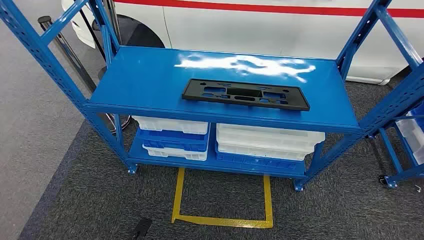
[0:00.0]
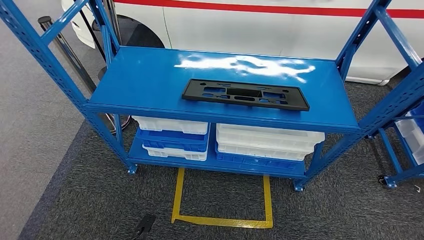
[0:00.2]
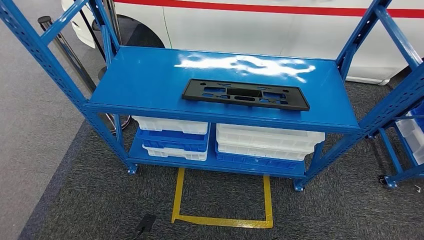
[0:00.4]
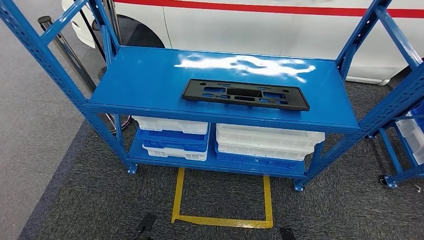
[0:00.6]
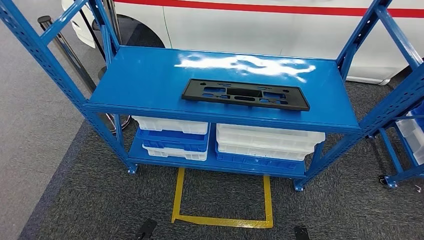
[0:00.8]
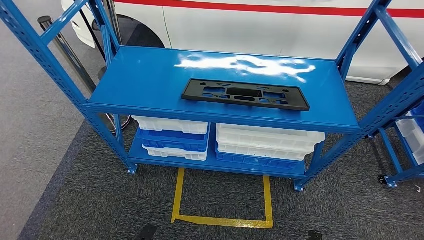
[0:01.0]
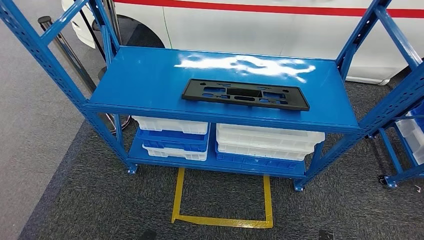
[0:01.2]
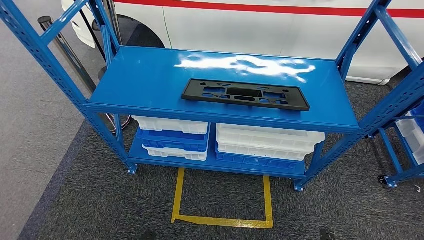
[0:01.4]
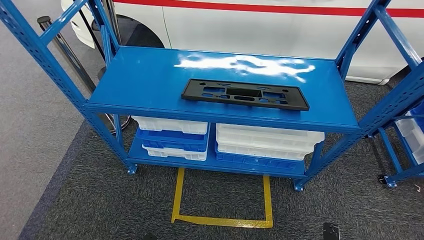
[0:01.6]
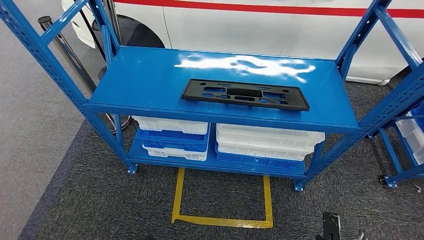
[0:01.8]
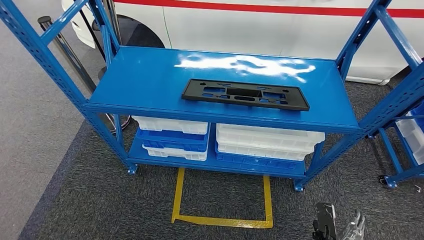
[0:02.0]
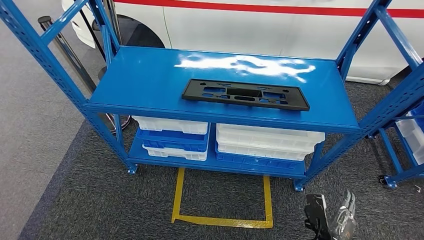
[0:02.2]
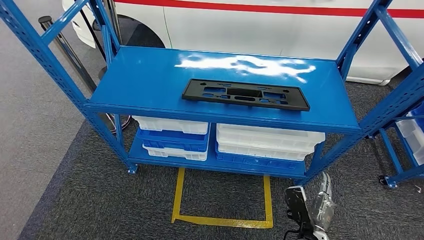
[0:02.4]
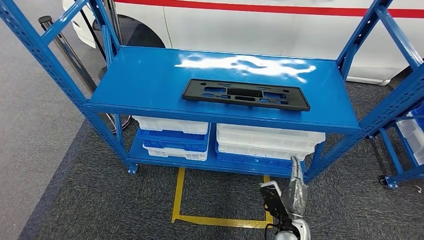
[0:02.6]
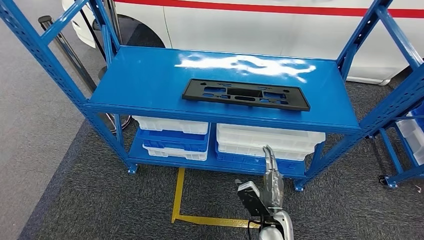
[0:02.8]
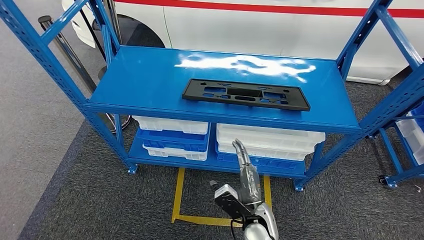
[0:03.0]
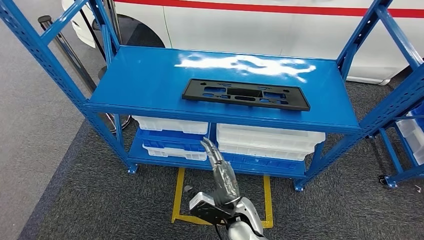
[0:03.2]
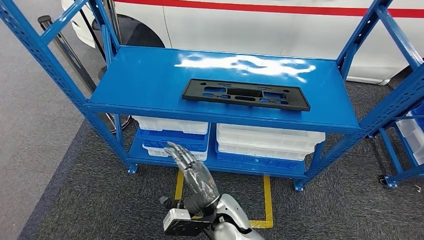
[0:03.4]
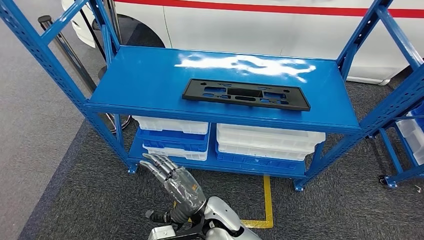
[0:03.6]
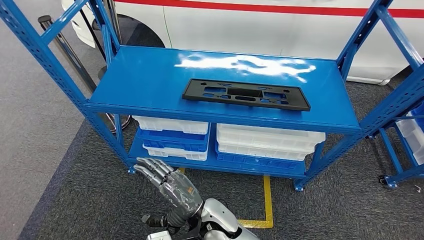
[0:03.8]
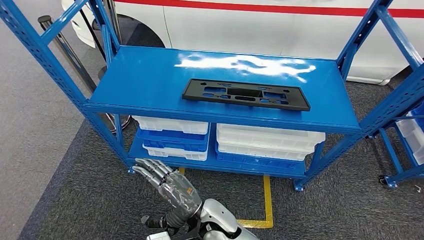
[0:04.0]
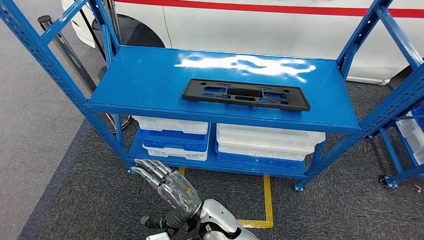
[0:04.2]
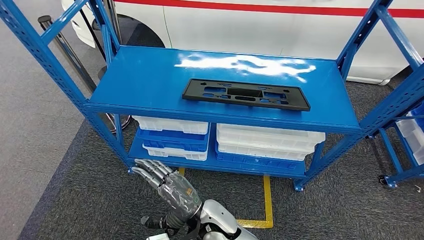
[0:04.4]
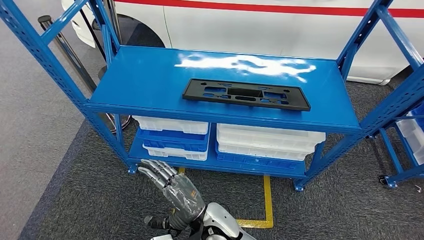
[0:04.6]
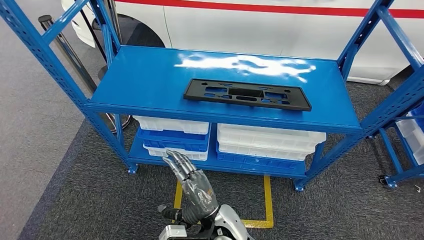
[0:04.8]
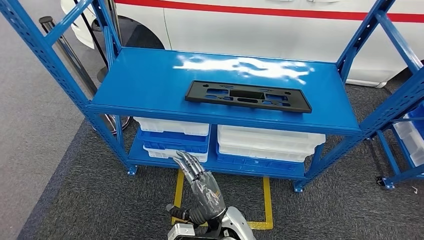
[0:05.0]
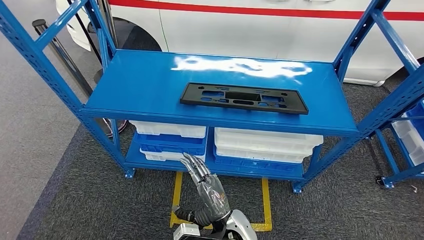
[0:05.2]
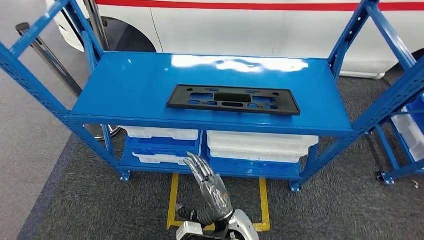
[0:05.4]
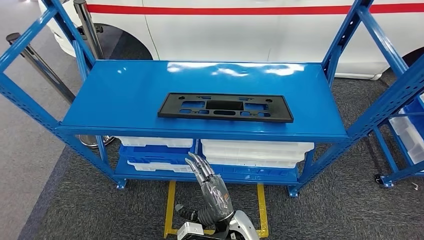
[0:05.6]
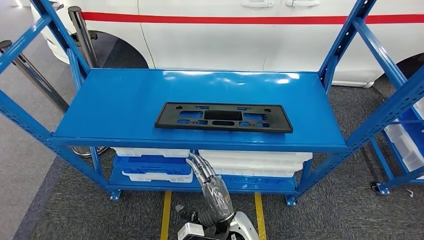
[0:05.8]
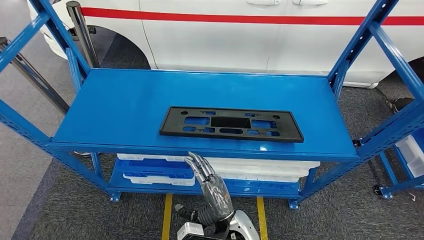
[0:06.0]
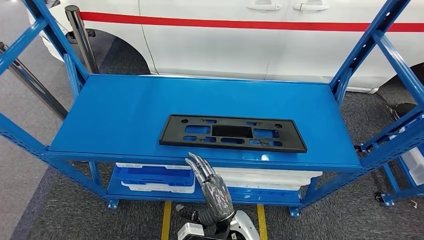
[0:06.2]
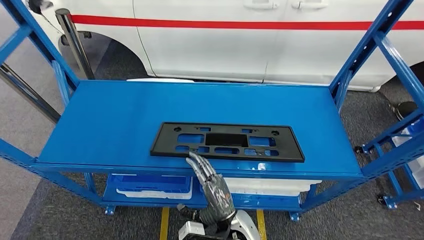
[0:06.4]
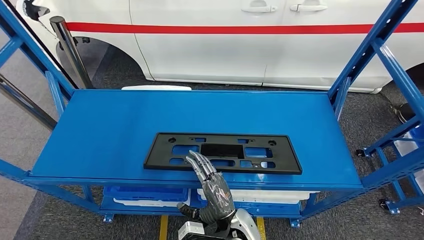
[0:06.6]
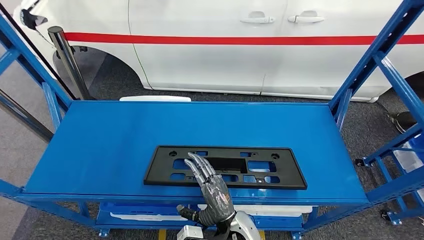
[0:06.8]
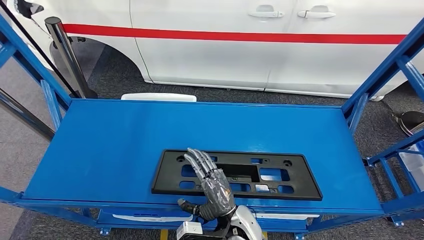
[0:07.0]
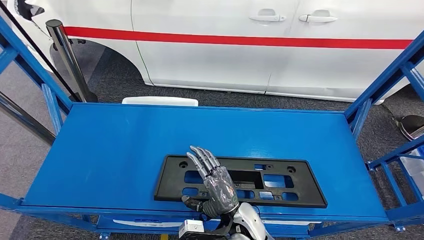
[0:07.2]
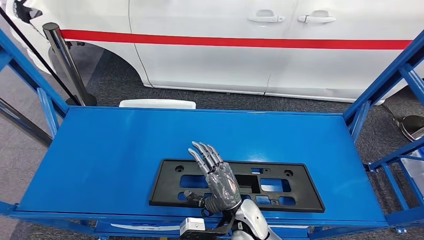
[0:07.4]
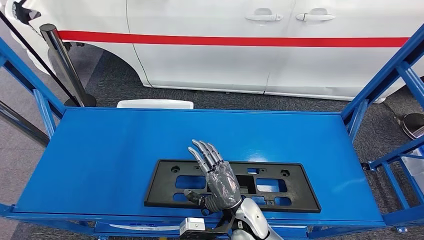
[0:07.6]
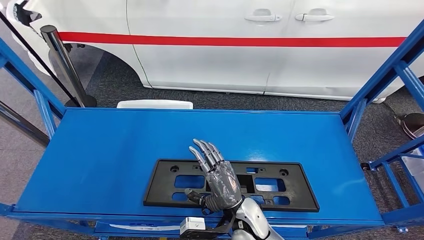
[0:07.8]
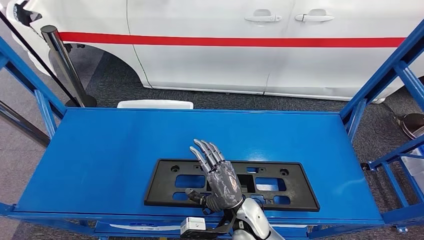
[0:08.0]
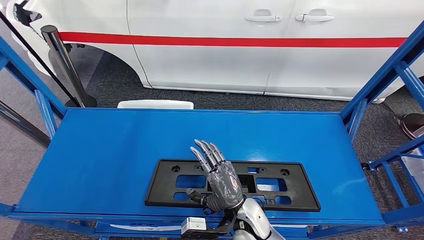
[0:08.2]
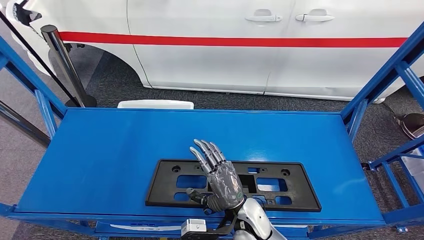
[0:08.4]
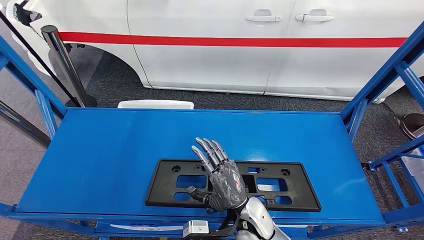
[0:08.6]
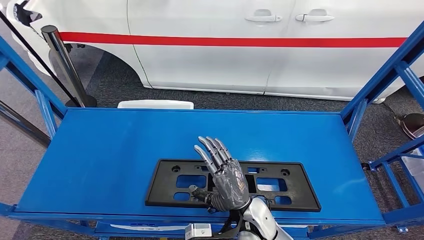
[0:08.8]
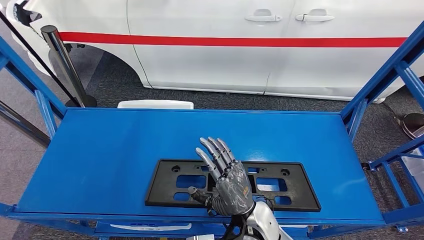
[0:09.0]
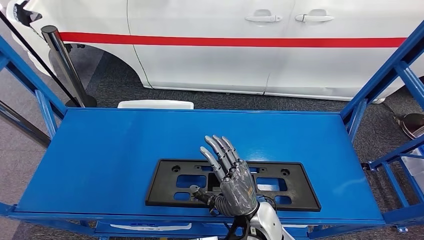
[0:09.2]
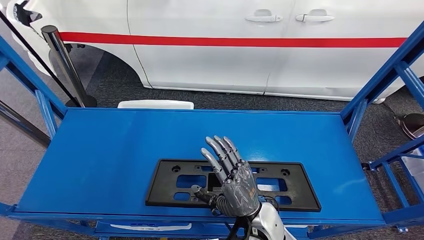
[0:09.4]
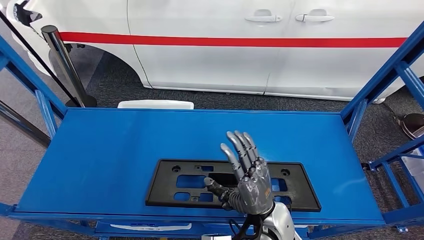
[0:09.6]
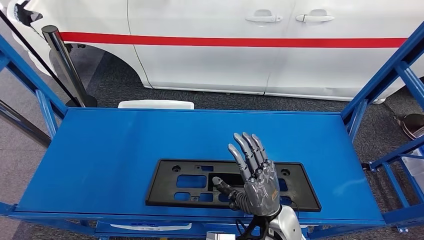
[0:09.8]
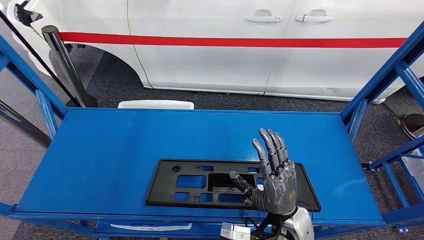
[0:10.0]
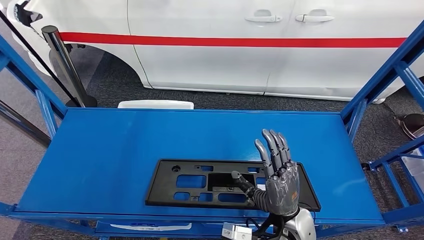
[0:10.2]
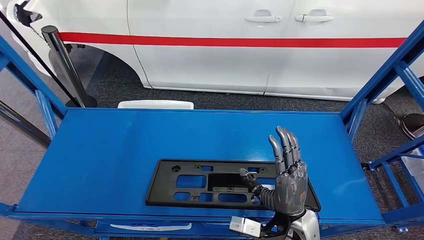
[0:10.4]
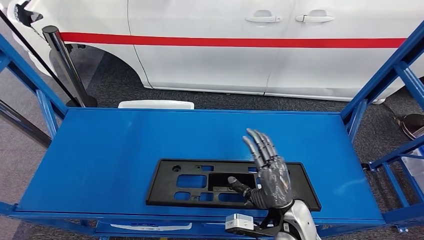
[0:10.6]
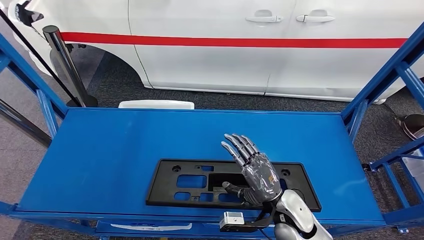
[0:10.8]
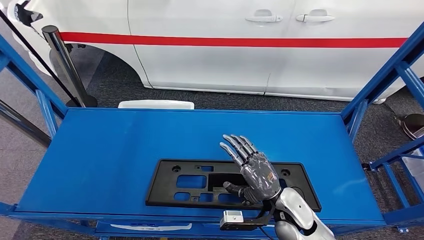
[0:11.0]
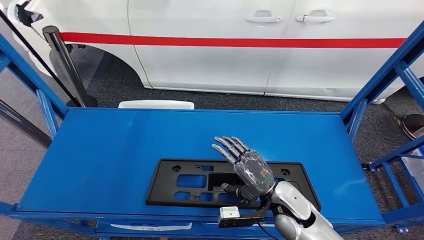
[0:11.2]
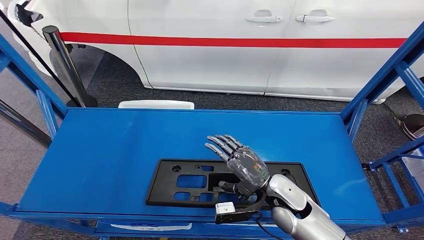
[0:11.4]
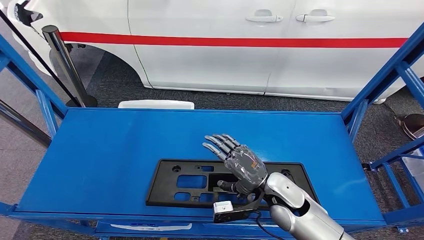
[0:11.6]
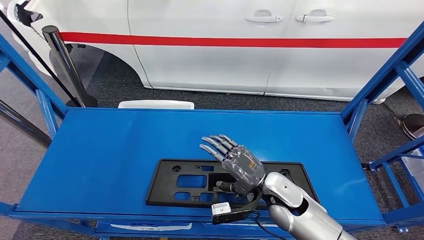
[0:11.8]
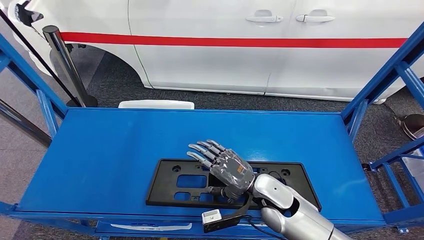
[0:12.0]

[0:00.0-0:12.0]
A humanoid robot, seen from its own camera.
0:01.6 to 0:03.0: The right hand travels to the left, upward and forward by some 30 cm.
0:03.0 to 0:04.4: The right hand heads to the left and upward, covering approximately 15 cm.
0:07.6 to 0:09.0: The hands move only a little.
0:09.0 to 0:10.4: The right hand travels to the right by about 10 cm.
0:10.4 to 0:12.0: The right hand is displaced forward by approximately 5 cm.

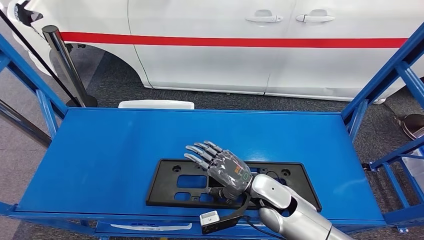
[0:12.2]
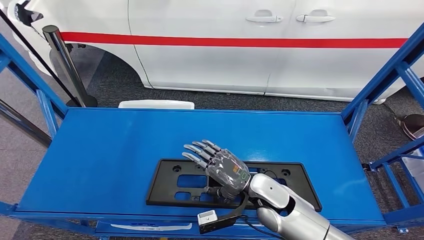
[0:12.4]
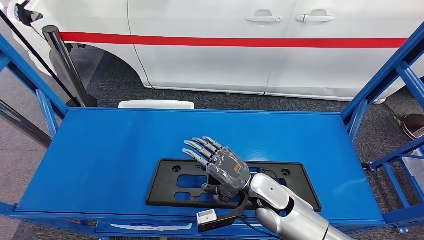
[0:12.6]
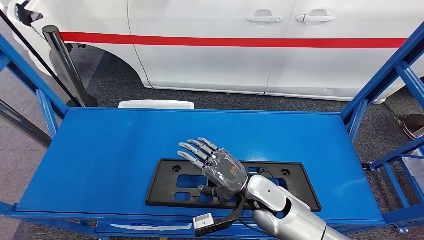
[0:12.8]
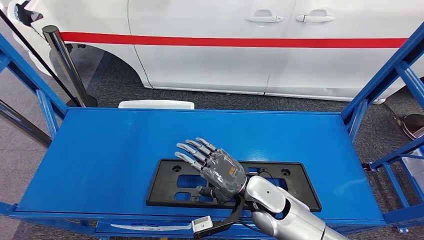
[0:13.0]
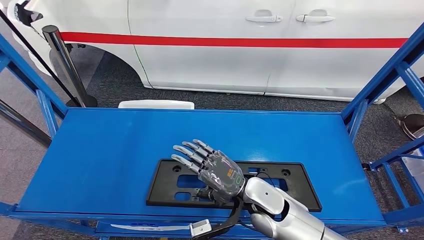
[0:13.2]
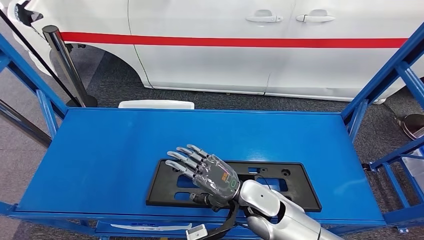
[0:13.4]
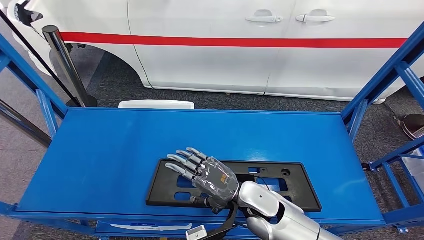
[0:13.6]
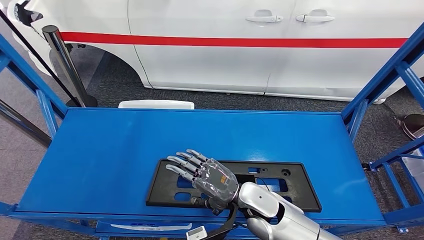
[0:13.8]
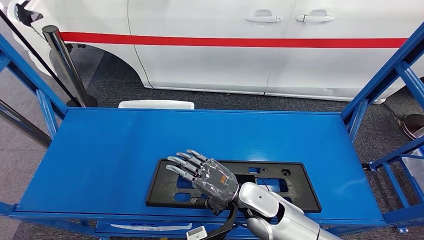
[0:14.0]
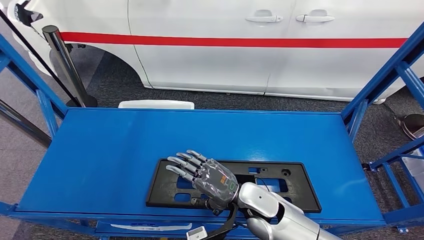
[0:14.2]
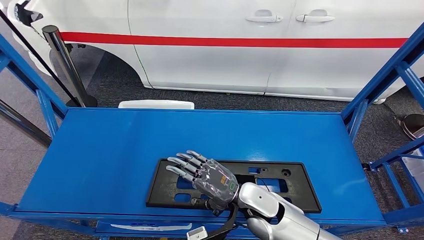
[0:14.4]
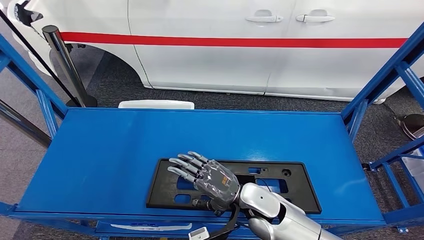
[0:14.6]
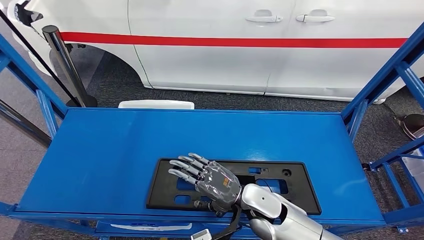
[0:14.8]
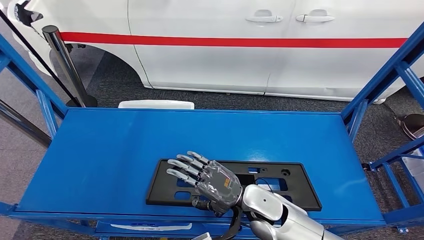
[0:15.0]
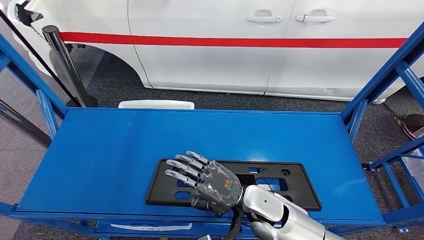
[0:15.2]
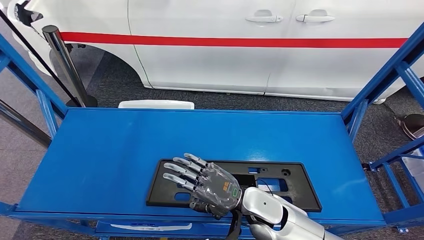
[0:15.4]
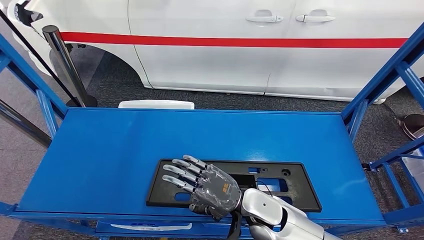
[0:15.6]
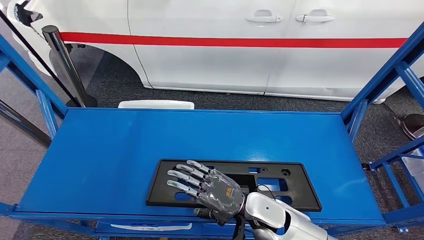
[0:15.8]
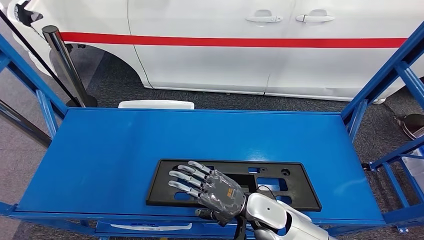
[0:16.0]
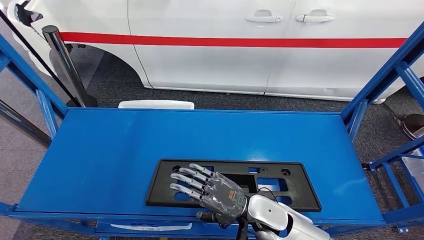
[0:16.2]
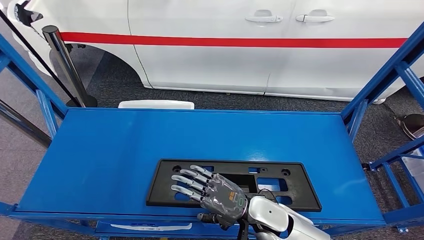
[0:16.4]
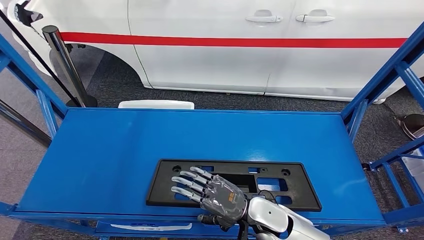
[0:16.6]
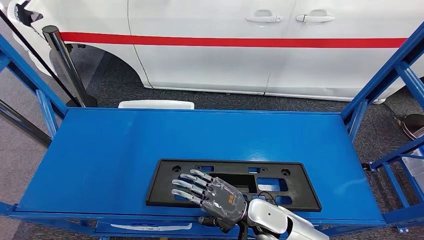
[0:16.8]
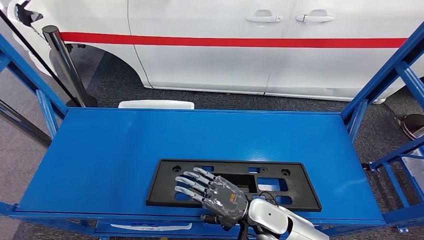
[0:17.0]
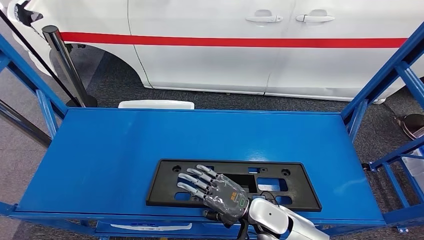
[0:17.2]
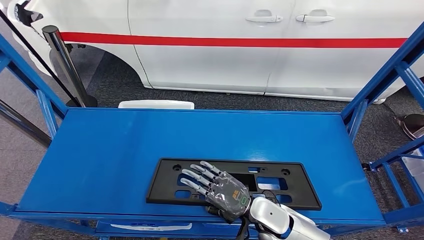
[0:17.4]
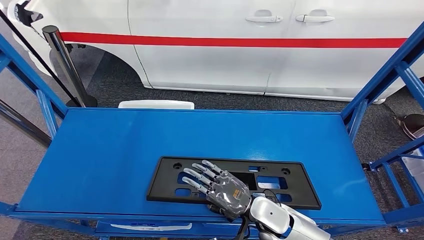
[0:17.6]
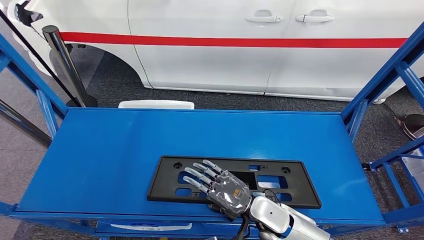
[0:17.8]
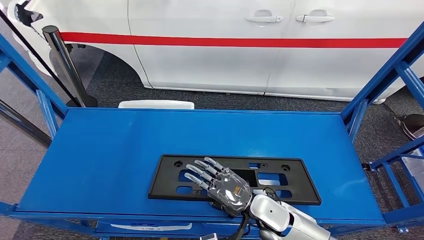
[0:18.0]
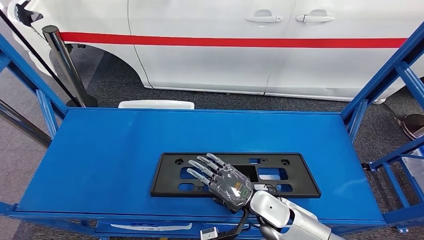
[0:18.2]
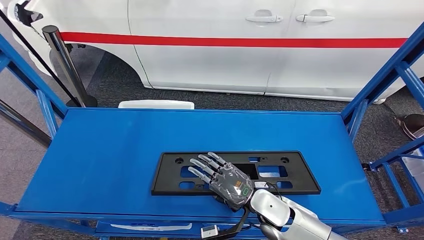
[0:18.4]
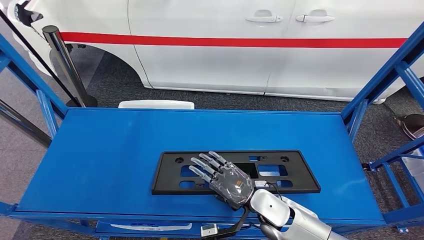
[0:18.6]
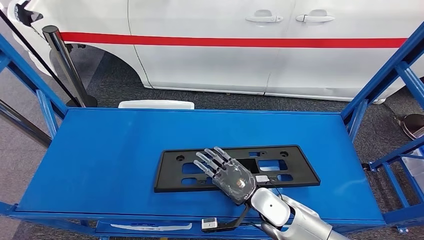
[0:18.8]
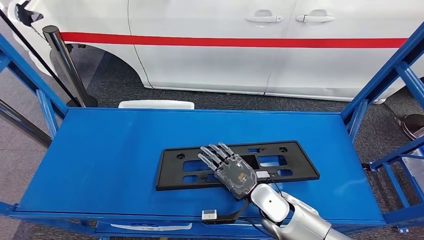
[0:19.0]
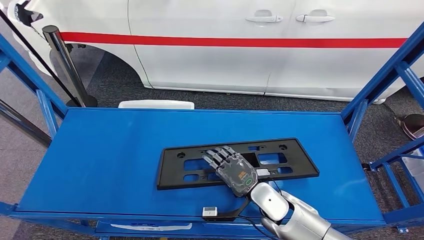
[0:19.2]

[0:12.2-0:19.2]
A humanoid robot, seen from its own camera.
0:12.2 to 0:13.6: The hands stay close to where they were, moving slightly.
0:13.6 to 0:15.0: Both hands stay about where they are.
0:15.0 to 0:17.8: The hands make only small movements.
